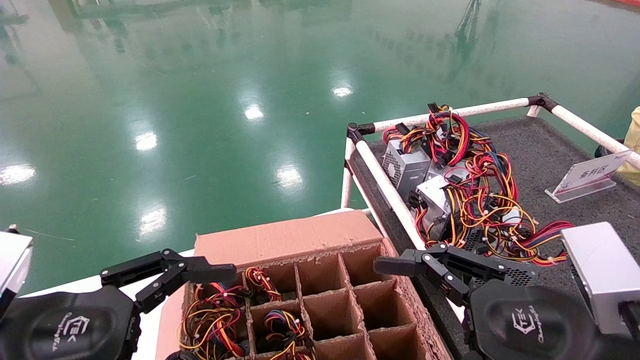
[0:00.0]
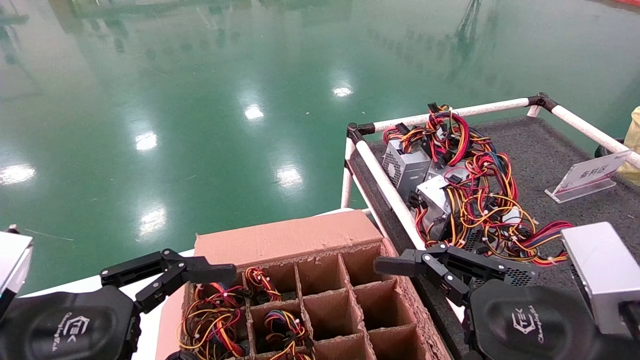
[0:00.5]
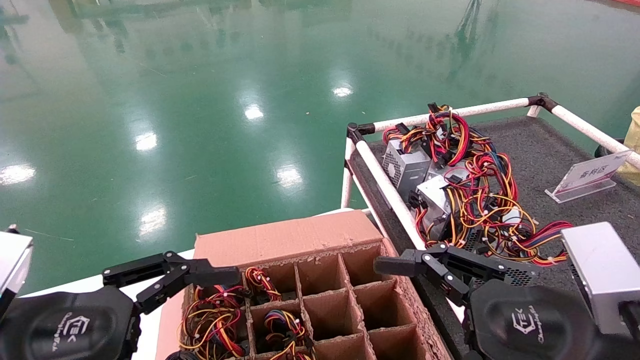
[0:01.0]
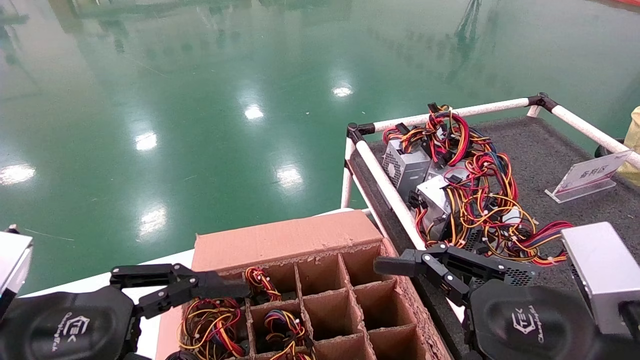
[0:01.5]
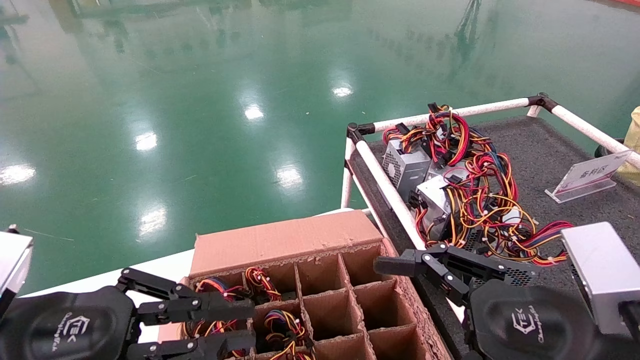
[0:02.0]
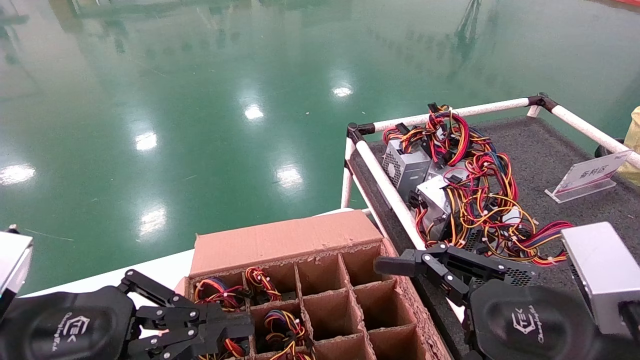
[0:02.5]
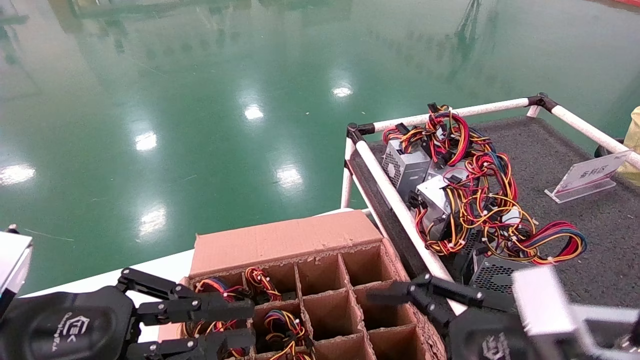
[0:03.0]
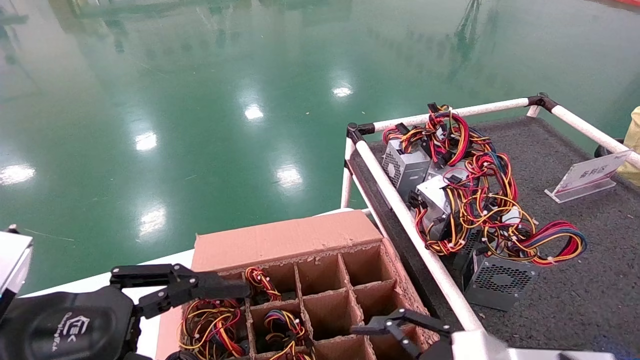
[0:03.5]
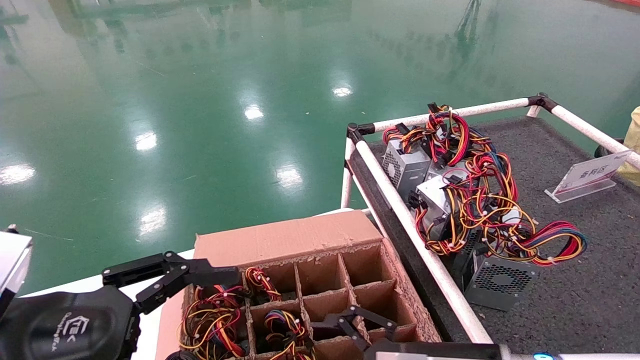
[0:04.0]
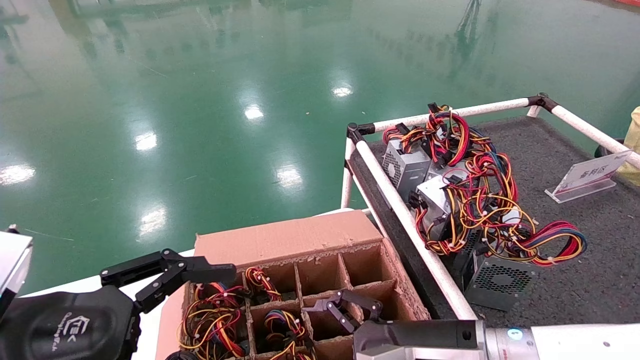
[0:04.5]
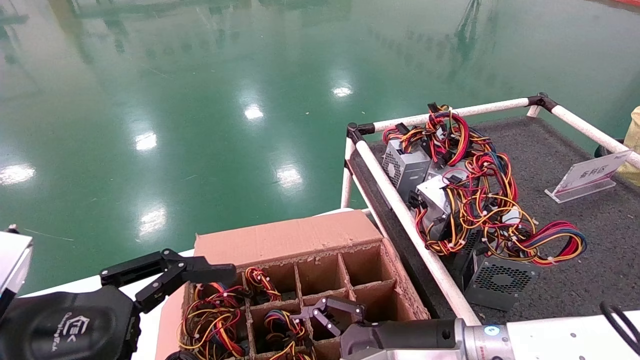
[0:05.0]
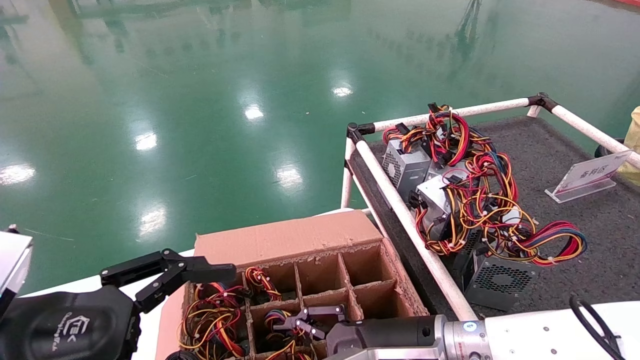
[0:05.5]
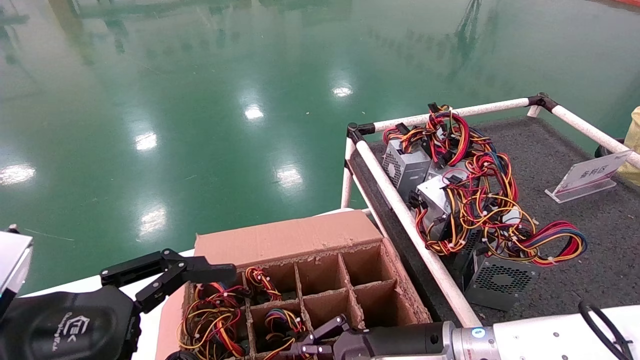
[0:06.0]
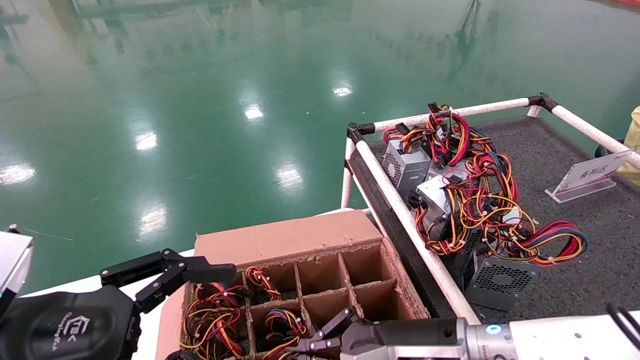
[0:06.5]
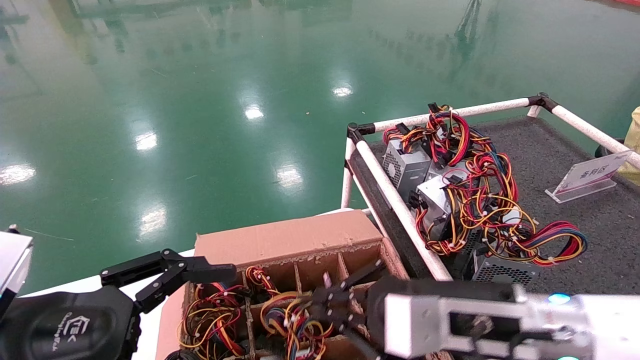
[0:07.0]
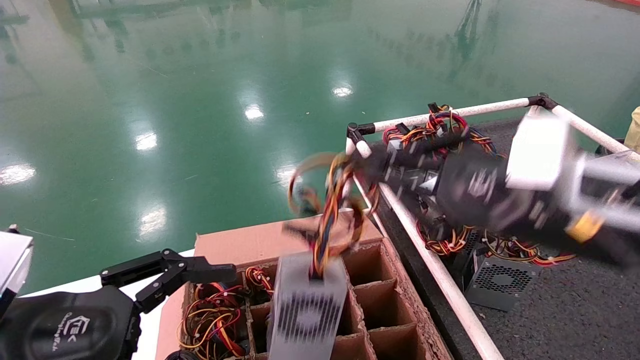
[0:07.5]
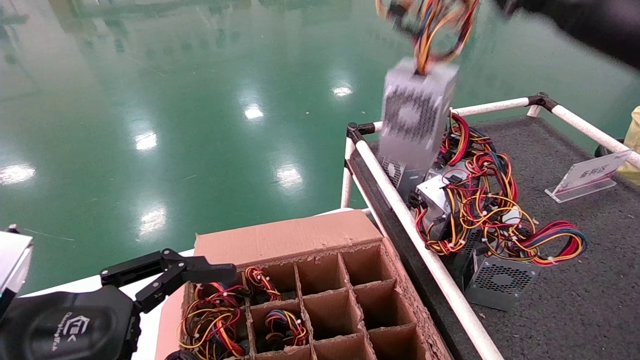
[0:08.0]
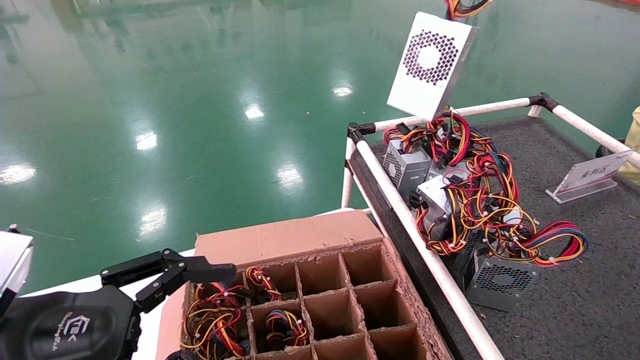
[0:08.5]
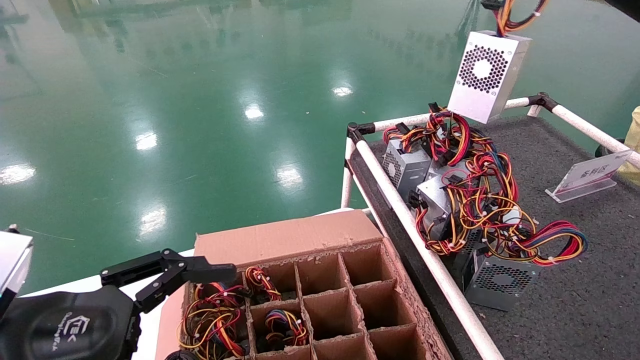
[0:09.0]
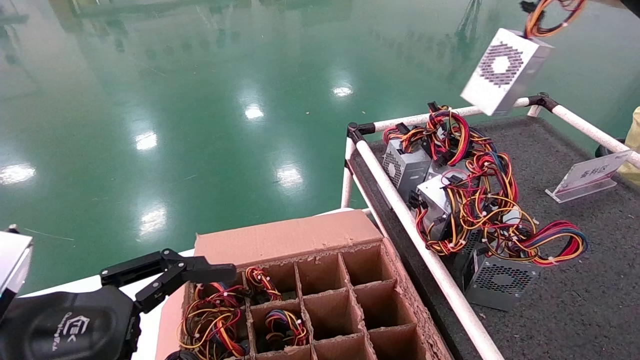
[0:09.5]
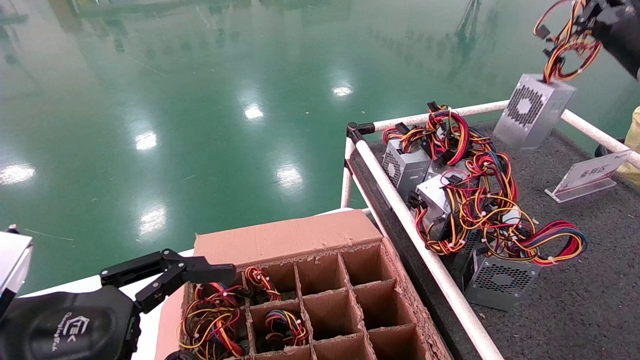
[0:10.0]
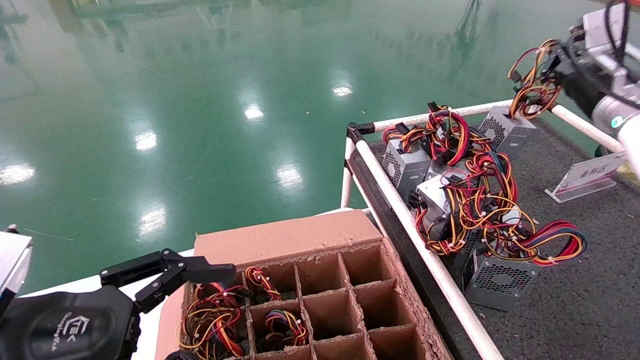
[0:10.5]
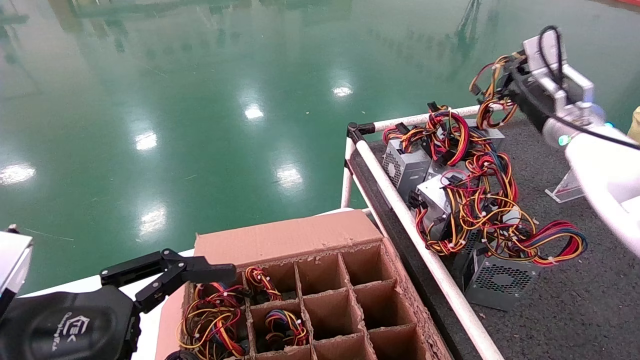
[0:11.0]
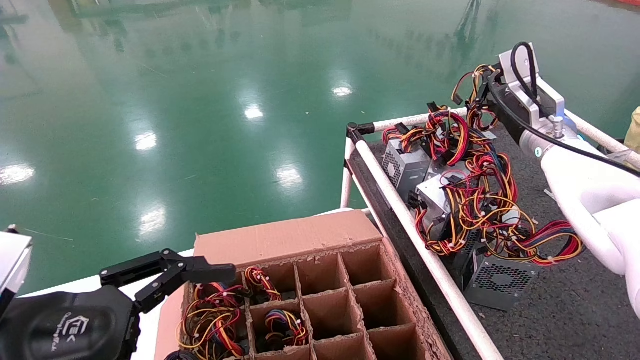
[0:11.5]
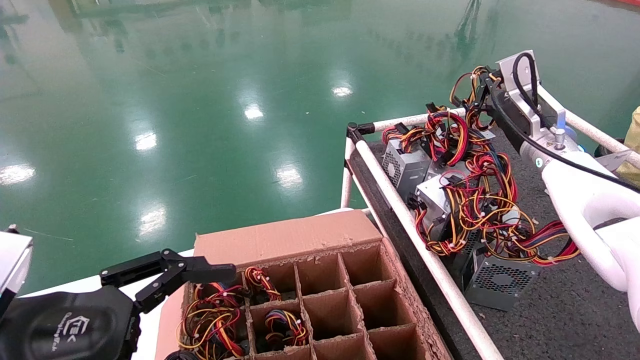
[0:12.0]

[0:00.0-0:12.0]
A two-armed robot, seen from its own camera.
Step, 0:02.0 to 0:06.0: Grab and lift the power supply from the large box.
0:00.0 to 0:02.0: The left gripper closes up.
0:02.0 to 0:04.0: The right gripper goes some 15 cm downward, forward and to the left, while the left gripper opens its fingers.
0:04.0 to 0:06.0: The right gripper shifts by about 5 cm, and closes.
0:06.0 to 0:08.0: The right gripper travels upward and to the right by roughly 35 cm.
0:08.0 to 0:10.0: The right gripper shifts roughly 20 cm forward and to the right.
0:10.0 to 0:12.0: The right gripper travels downward, to the left and forward by roughly 15 cm.

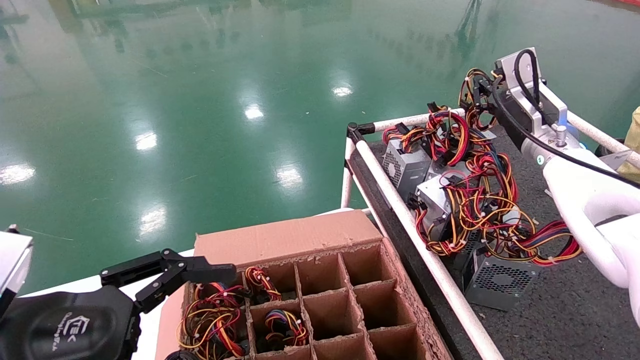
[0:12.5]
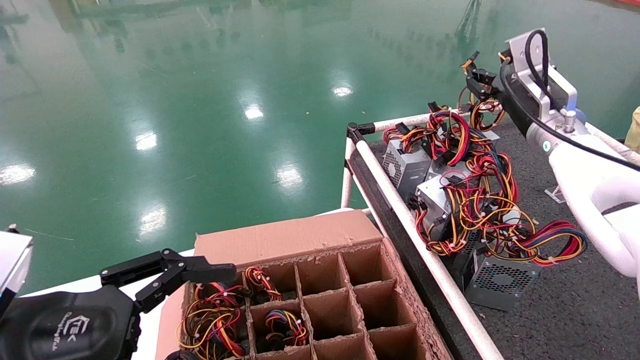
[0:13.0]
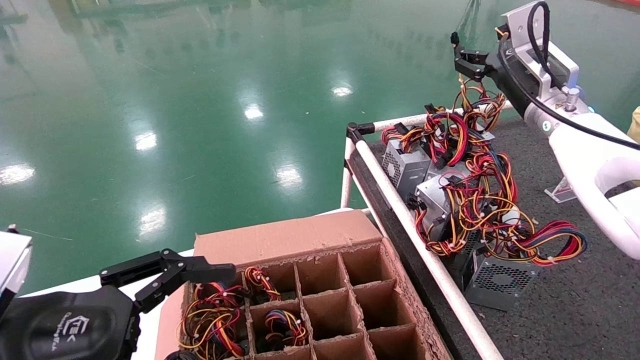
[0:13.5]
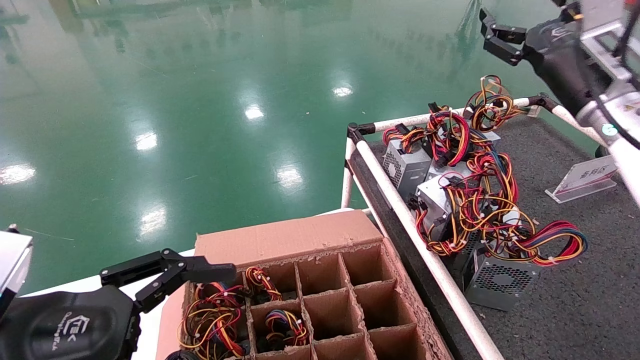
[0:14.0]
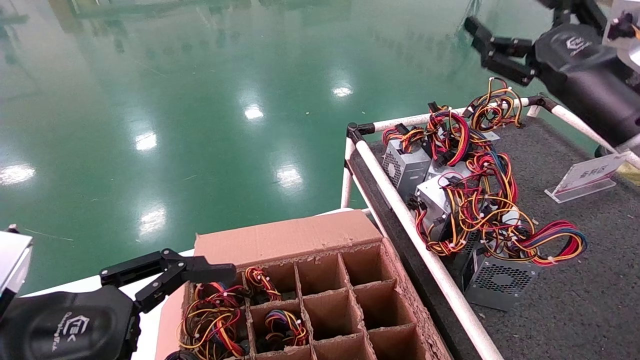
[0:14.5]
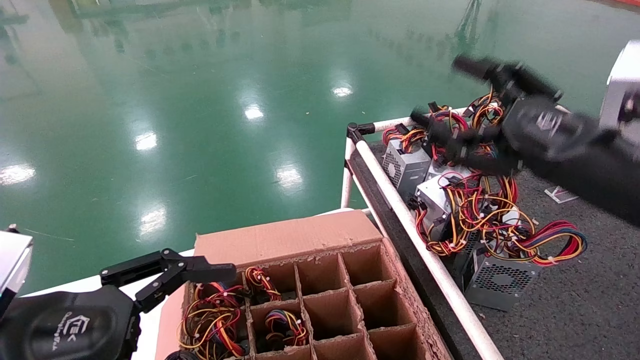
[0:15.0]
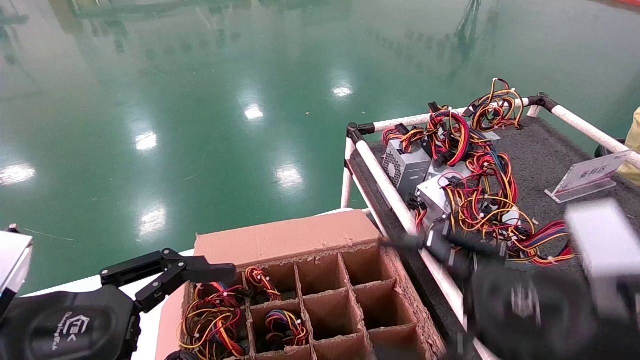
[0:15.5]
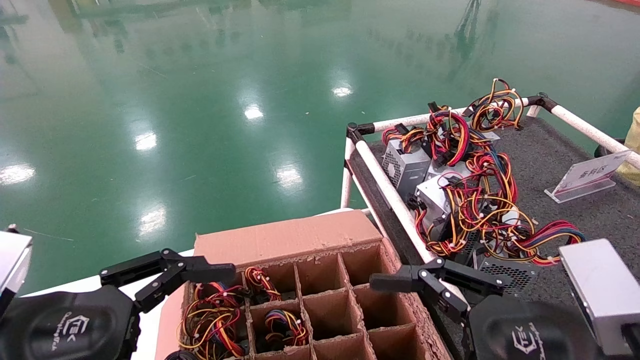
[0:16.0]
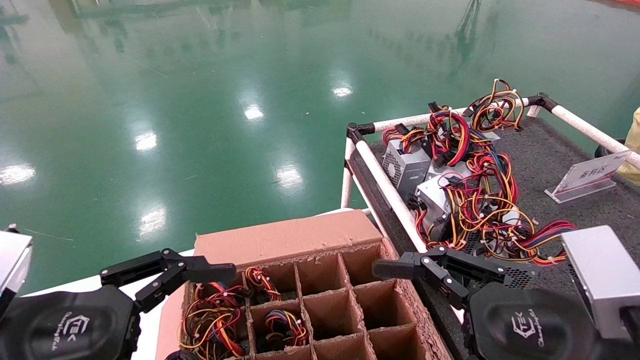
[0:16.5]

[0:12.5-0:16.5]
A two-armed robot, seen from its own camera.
0:12.5 to 0:14.5: The right gripper heads backward, covering approximately 15 cm, and opens its fingers.
0:14.5 to 0:16.5: The right gripper goes about 20 cm downward, backward and to the left.
